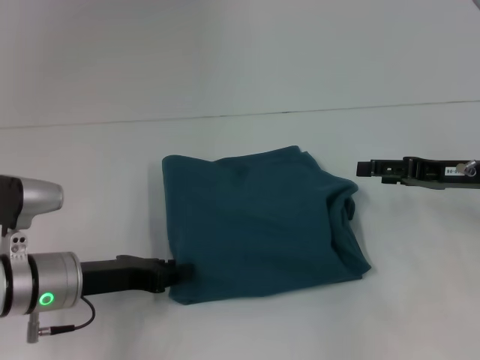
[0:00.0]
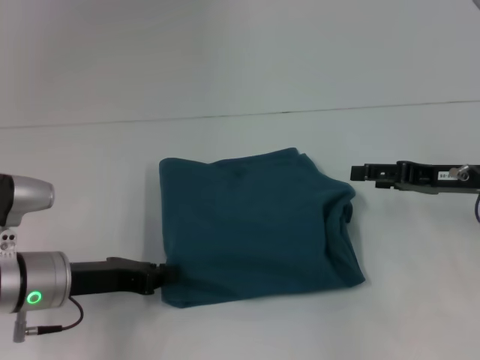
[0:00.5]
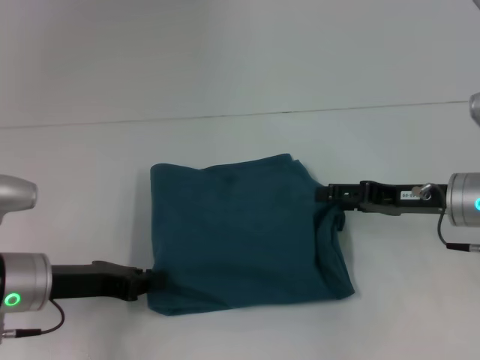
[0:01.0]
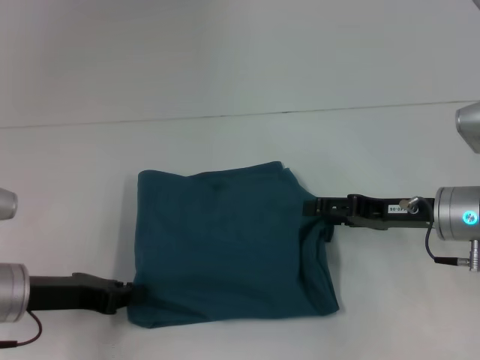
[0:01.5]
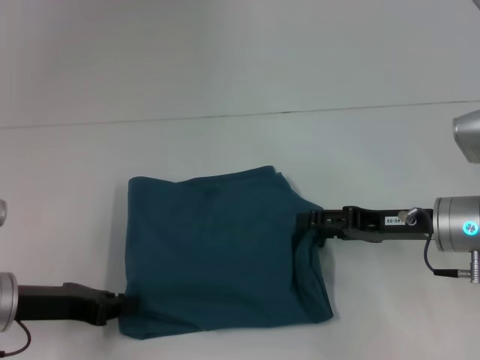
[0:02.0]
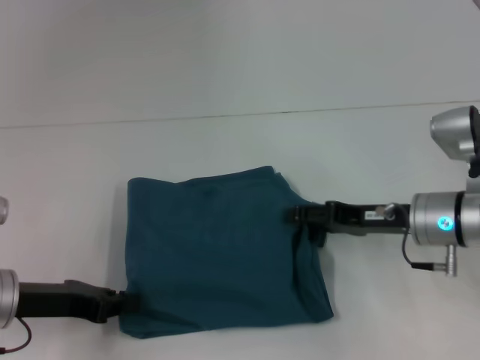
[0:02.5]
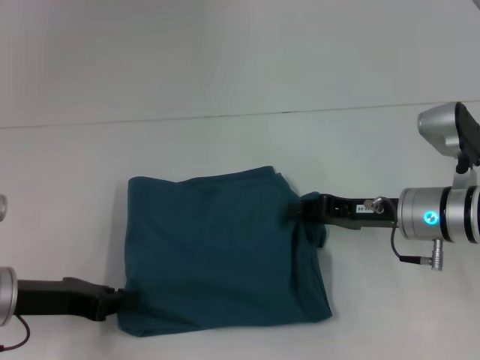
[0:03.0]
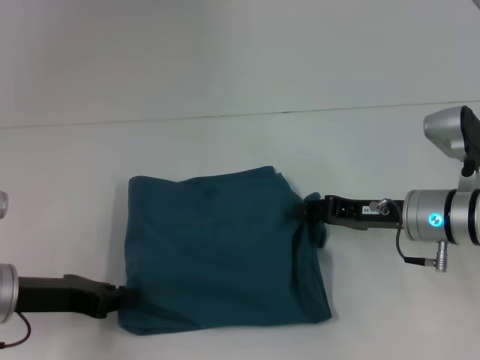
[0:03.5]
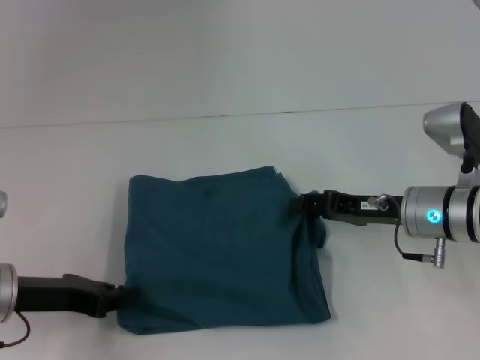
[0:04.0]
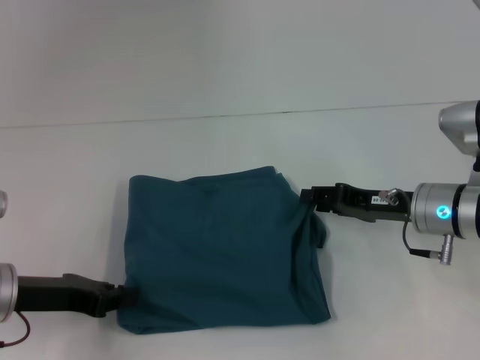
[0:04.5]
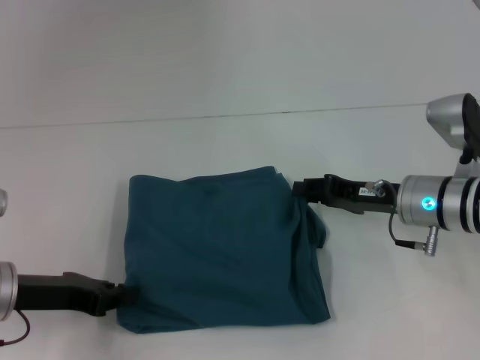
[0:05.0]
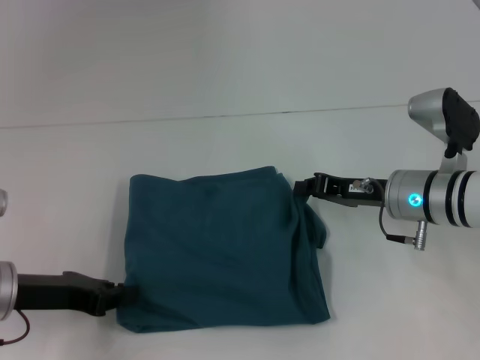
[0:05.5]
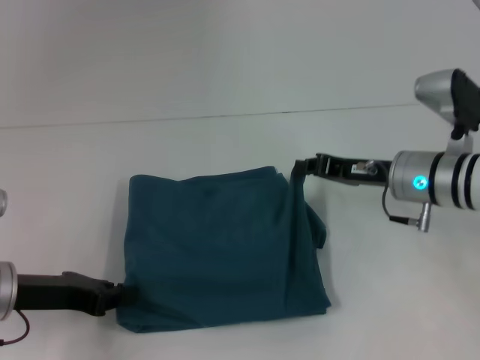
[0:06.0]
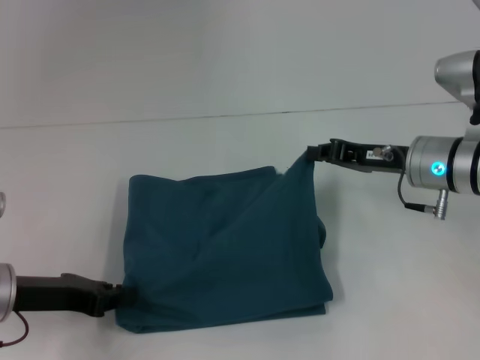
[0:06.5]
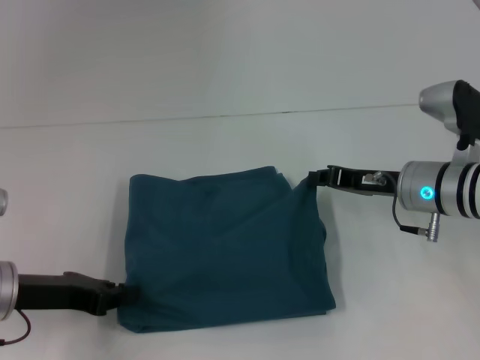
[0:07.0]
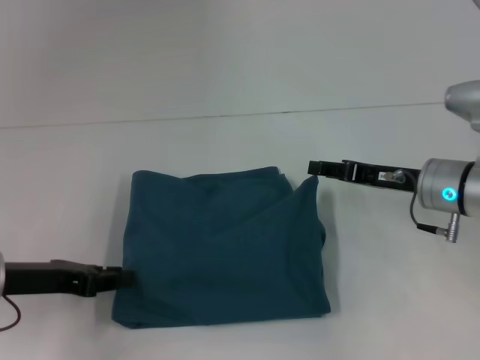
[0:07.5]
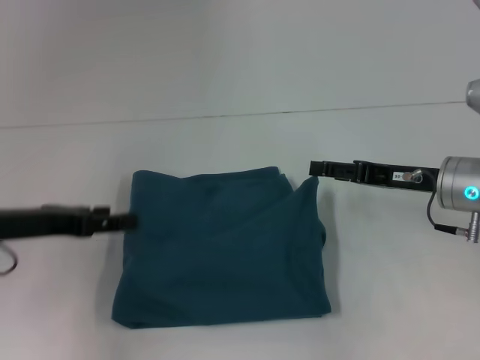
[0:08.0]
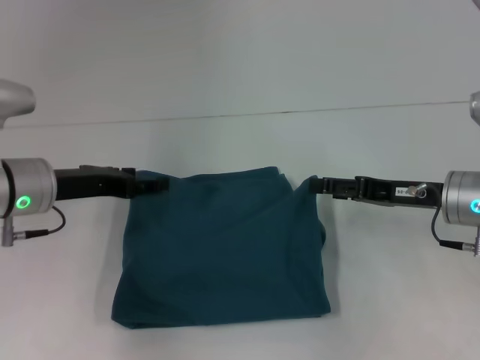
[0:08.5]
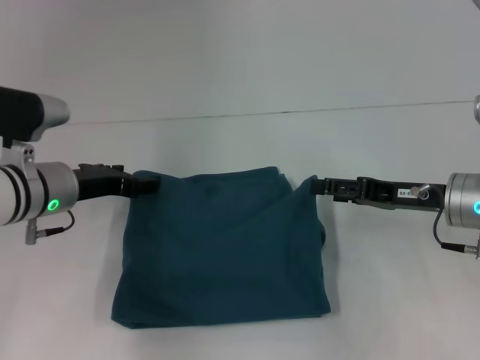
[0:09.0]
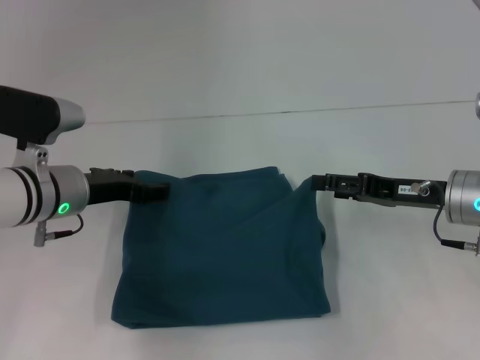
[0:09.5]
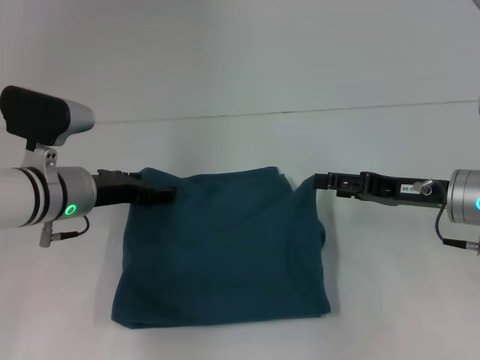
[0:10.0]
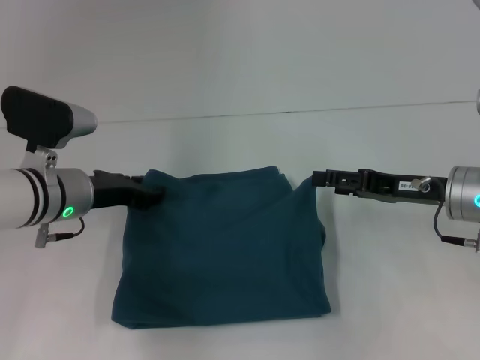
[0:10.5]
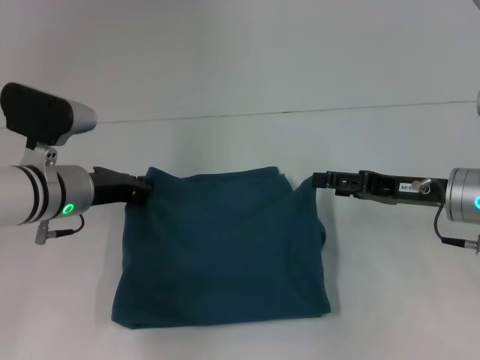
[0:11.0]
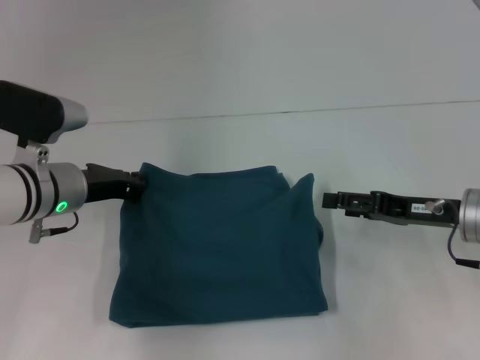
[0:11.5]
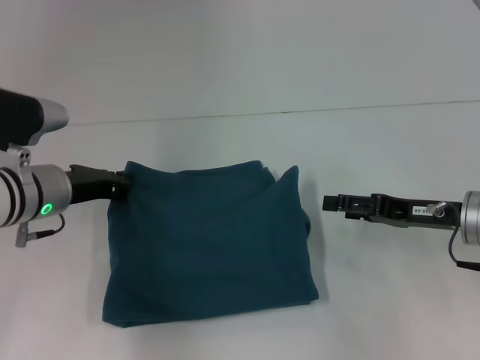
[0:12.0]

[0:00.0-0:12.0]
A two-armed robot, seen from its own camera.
0:00.0 to 0:02.0: Both grippers travel together to the left, about 5 cm. The left gripper closes.
0:02.0 to 0:04.0: The grippers move only a little.
0:04.0 to 0:06.0: The right gripper closes its fingers.
0:06.0 to 0:08.0: The right gripper opens up. The left gripper moves roughly 5 cm, and opens up.
0:08.0 to 0:10.0: The left gripper moves to the right and forward, roughly 10 cm.
0:10.0 to 0:12.0: The left gripper closes up.

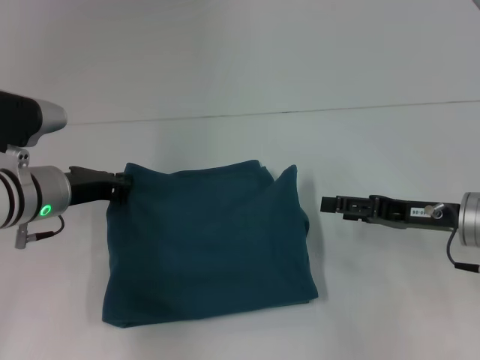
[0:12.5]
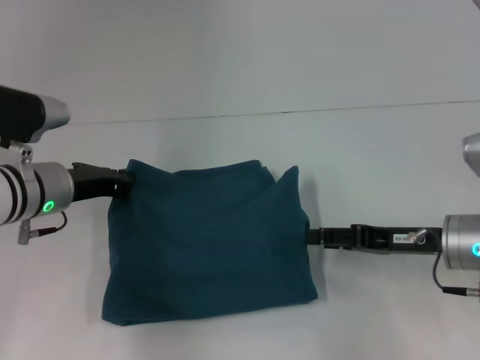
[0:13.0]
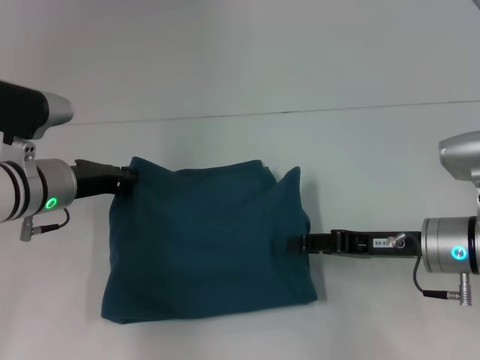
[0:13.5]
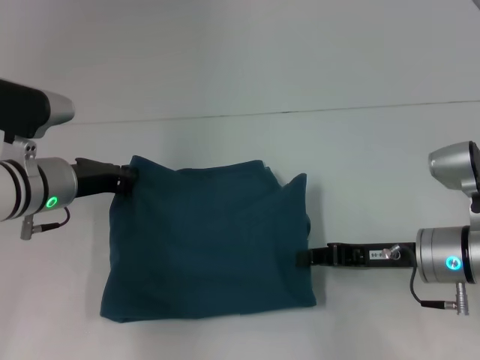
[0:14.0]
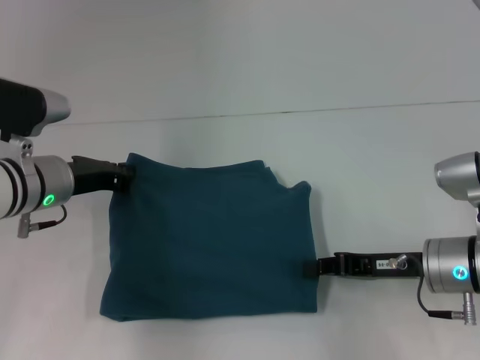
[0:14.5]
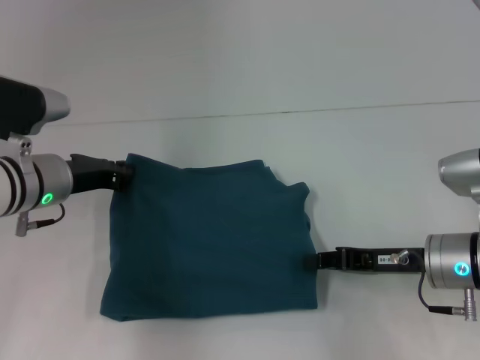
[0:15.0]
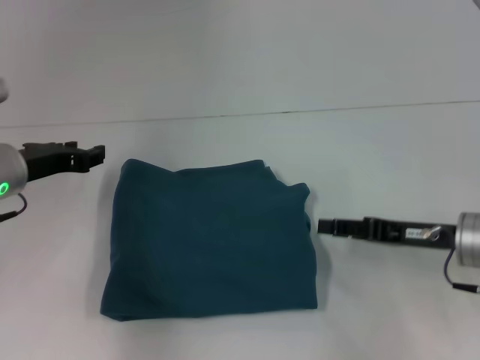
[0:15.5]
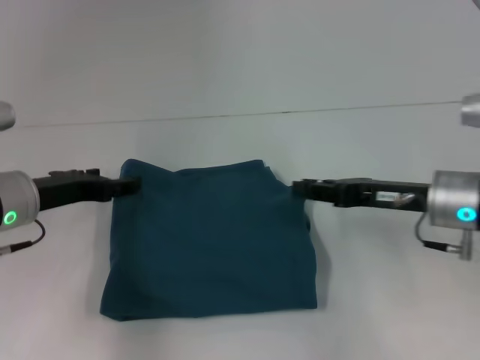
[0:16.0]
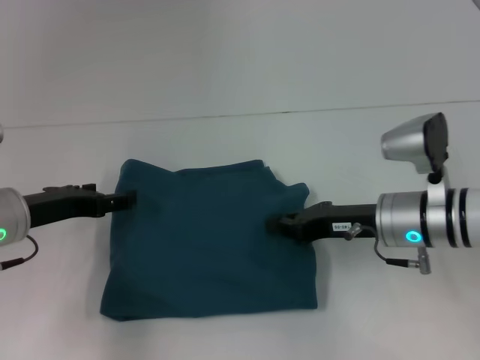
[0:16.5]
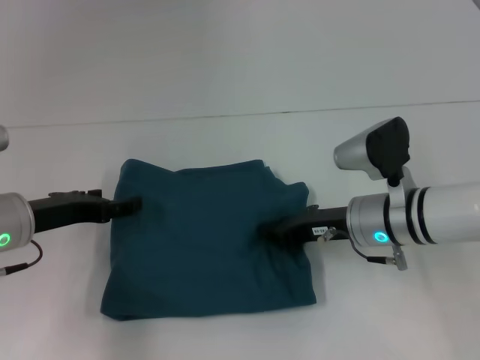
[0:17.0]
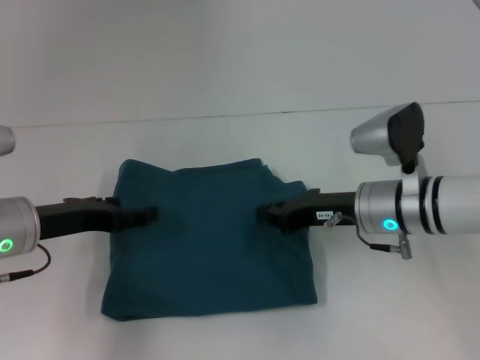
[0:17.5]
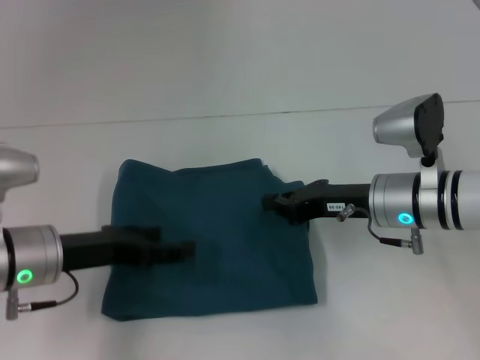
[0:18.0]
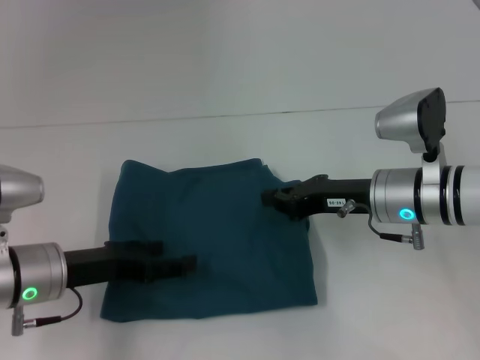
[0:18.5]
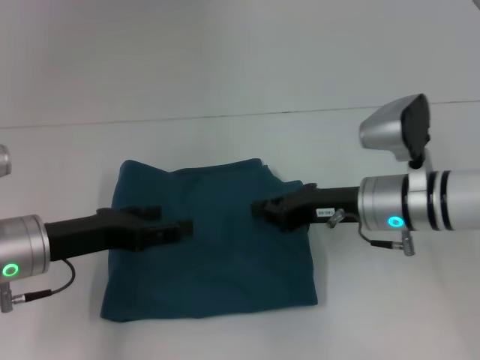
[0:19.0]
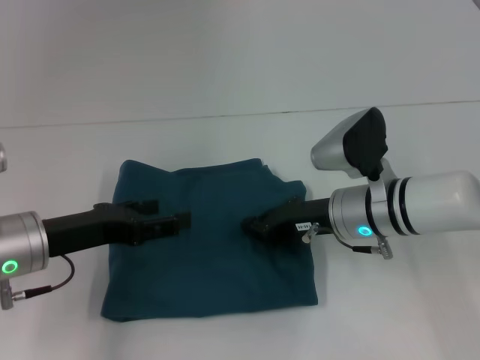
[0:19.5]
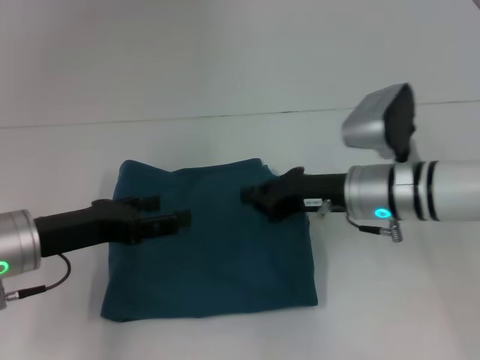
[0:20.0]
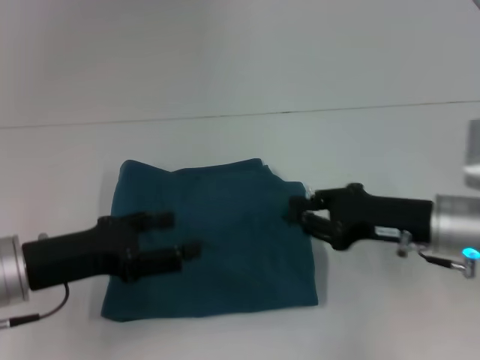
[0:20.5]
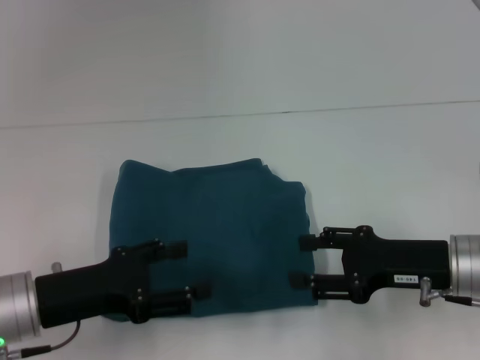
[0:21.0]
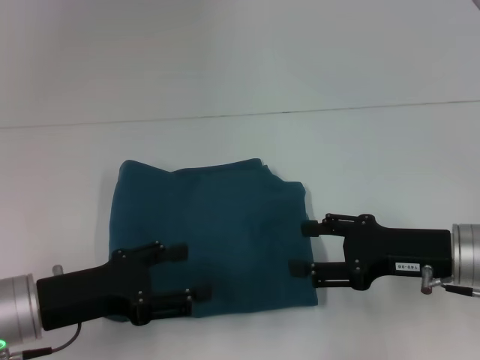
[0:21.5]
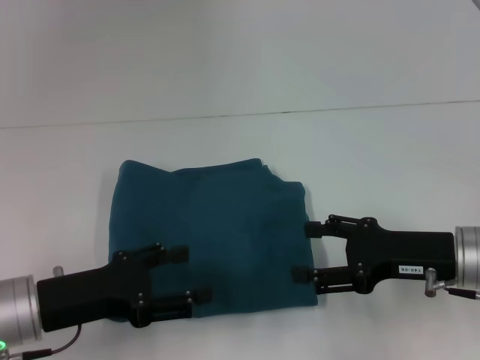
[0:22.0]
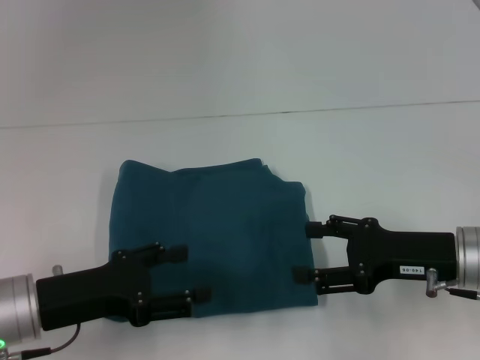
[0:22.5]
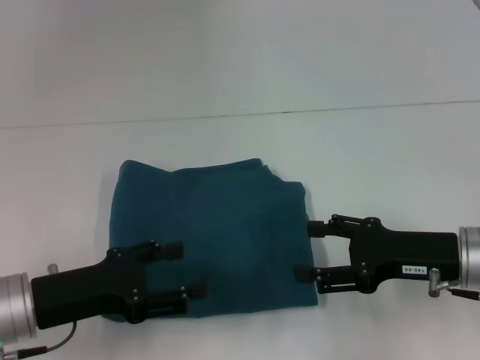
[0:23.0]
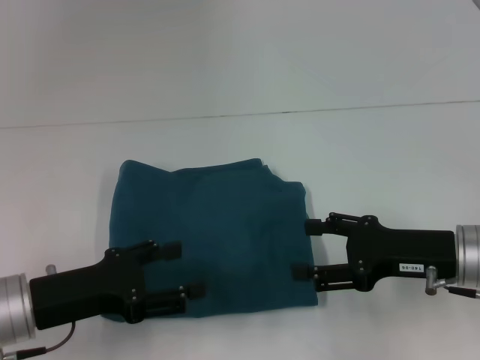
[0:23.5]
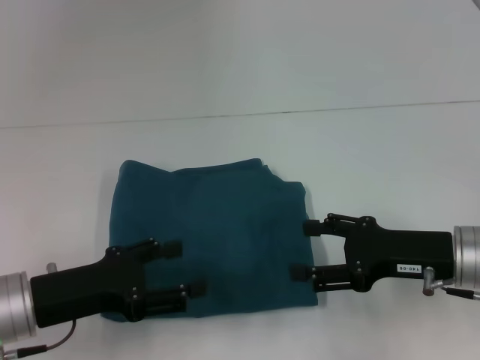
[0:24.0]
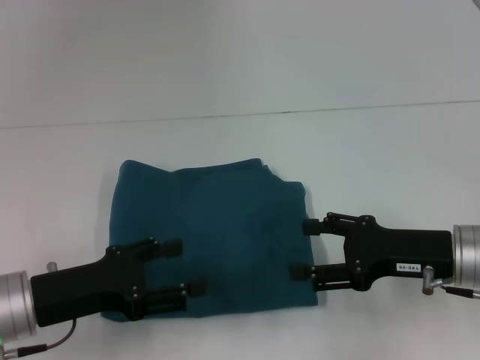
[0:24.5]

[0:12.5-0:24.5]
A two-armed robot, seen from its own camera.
0:12.5 to 0:14.5: The right gripper ends up approximately 5 cm from where it was, and closes up.
0:14.5 to 0:16.5: The left gripper moves some 5 cm, and opens its fingers. The right gripper changes place by about 5 cm, and opens, then closes again.
0:16.5 to 0:18.5: The left gripper ends up approximately 5 cm from where it was.
0:18.5 to 0:20.5: The right gripper changes place by approximately 5 cm.
0:20.5 to 0:22.5: The right gripper opens up.
0:22.5 to 0:24.5: Neither gripper changes place.

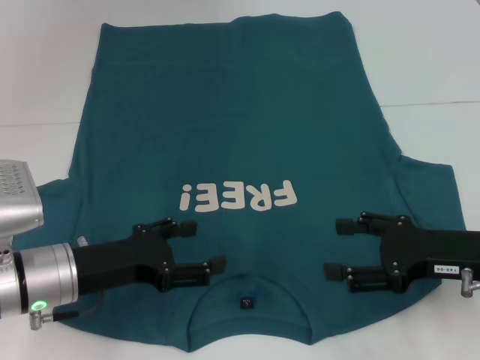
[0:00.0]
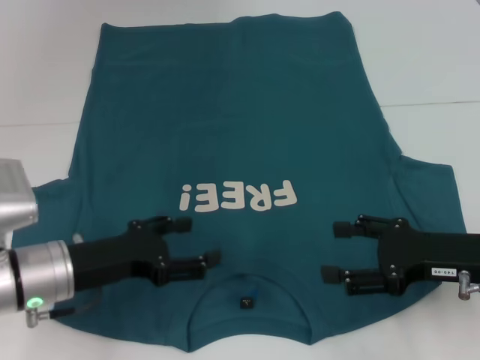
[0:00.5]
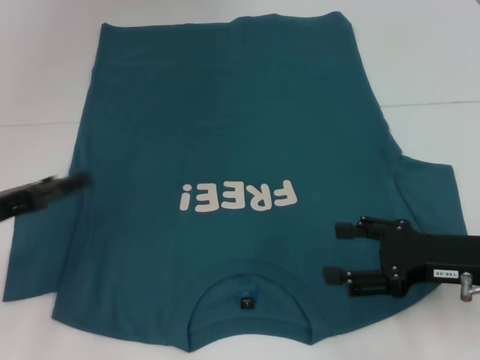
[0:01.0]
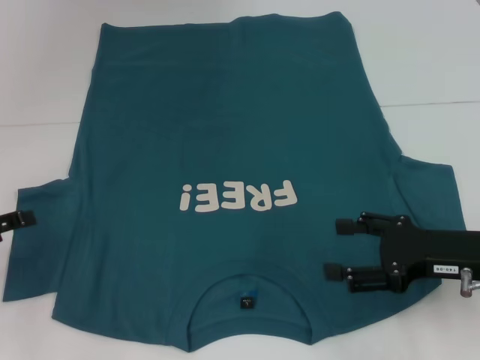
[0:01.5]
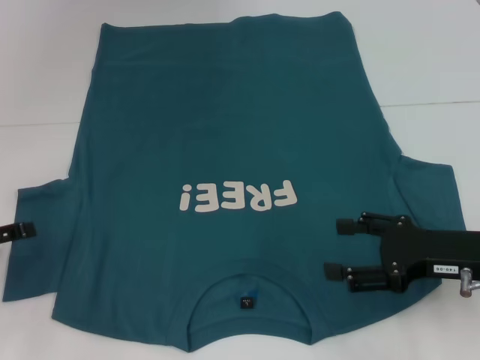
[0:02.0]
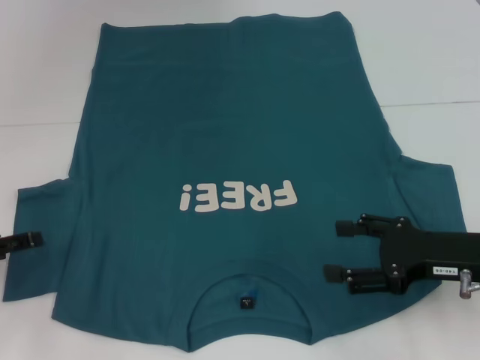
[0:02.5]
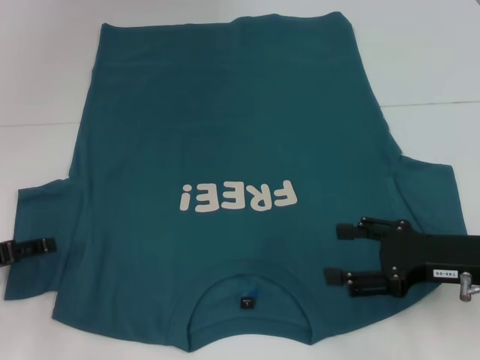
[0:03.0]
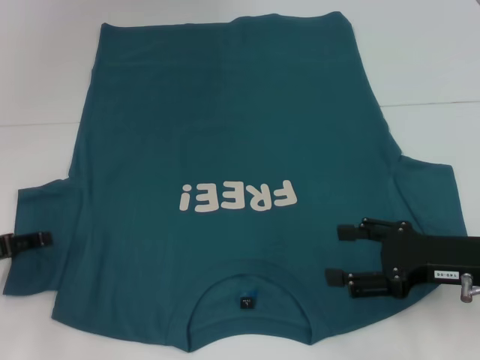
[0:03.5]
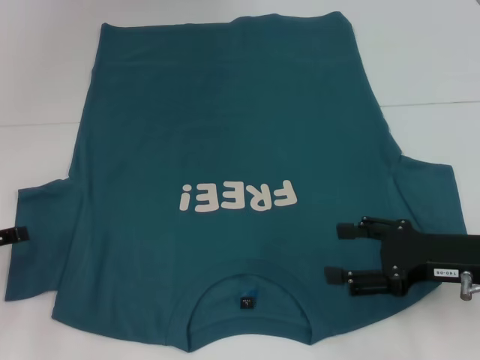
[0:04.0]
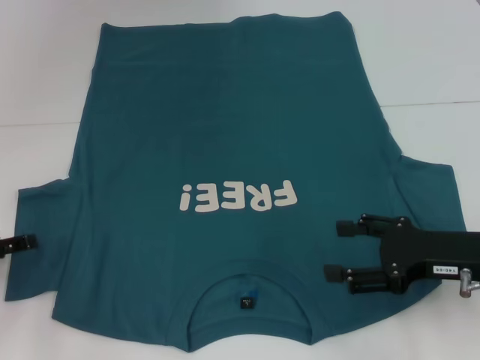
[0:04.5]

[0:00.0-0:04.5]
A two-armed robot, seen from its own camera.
0:00.0 to 0:02.0: The left gripper travels to the left by roughly 15 cm.
